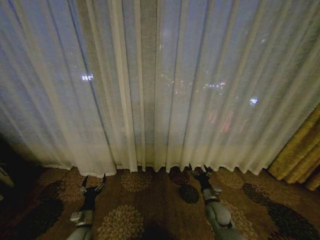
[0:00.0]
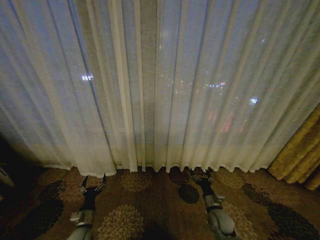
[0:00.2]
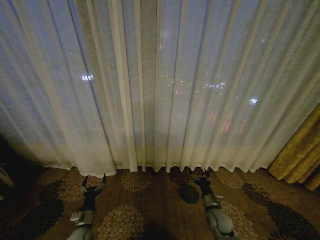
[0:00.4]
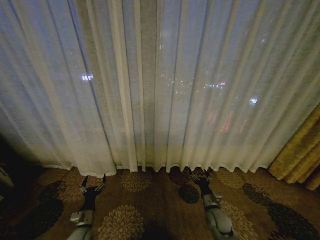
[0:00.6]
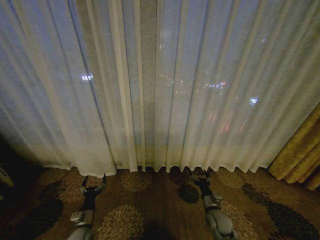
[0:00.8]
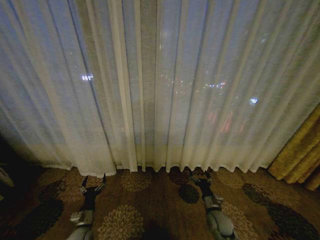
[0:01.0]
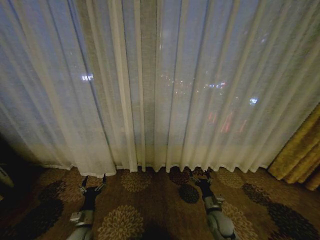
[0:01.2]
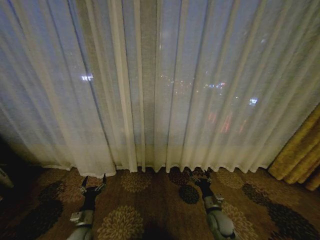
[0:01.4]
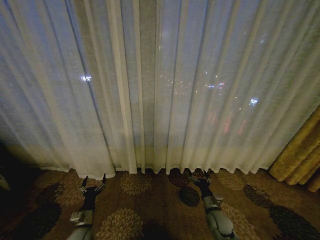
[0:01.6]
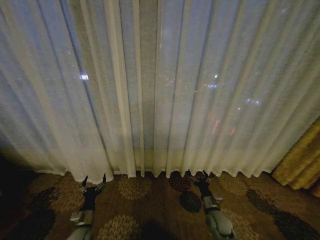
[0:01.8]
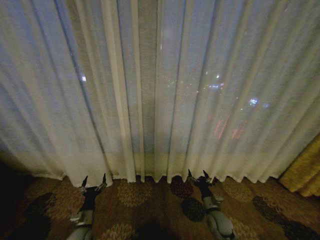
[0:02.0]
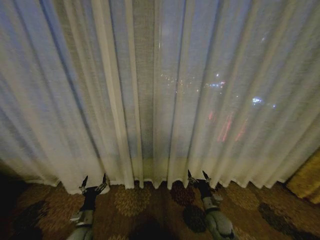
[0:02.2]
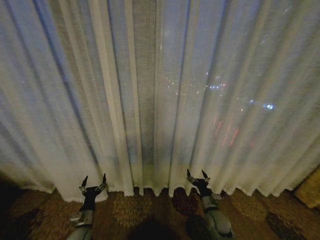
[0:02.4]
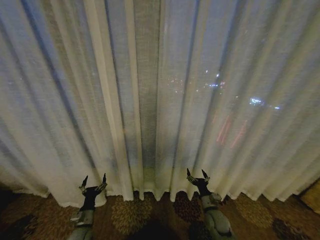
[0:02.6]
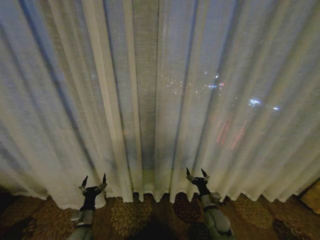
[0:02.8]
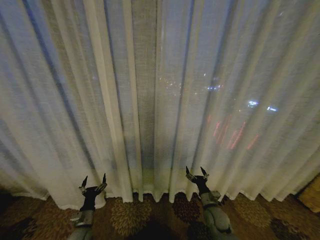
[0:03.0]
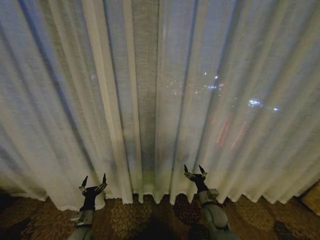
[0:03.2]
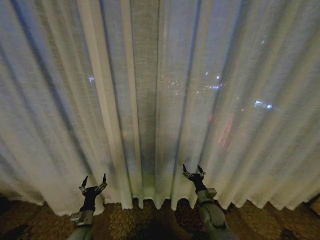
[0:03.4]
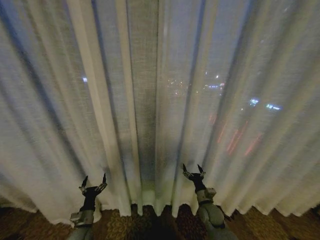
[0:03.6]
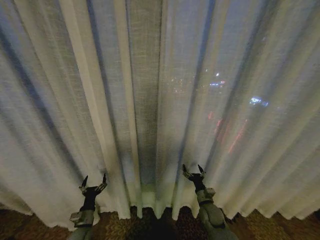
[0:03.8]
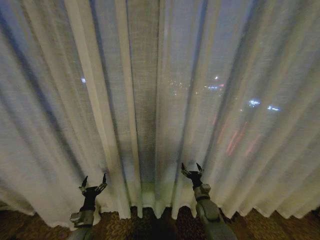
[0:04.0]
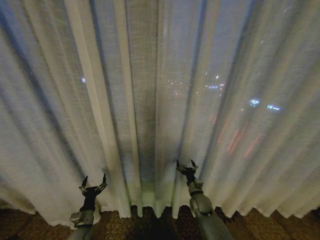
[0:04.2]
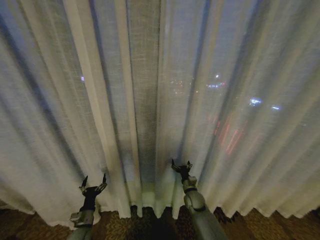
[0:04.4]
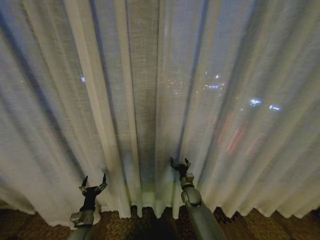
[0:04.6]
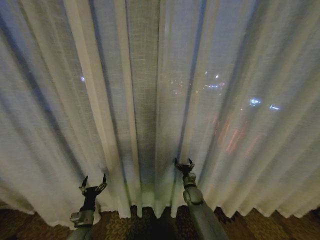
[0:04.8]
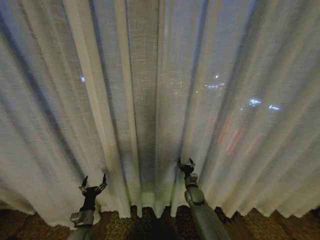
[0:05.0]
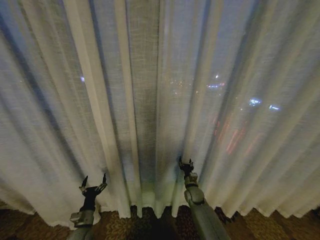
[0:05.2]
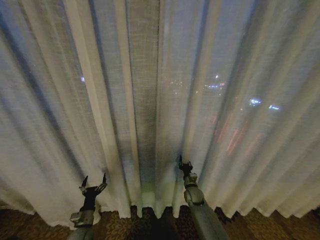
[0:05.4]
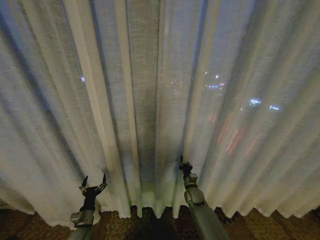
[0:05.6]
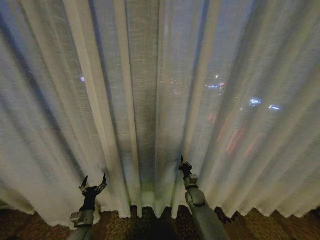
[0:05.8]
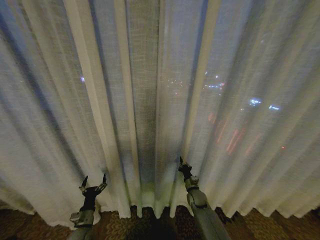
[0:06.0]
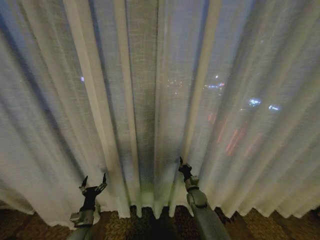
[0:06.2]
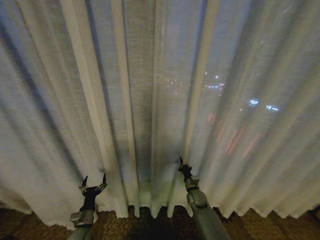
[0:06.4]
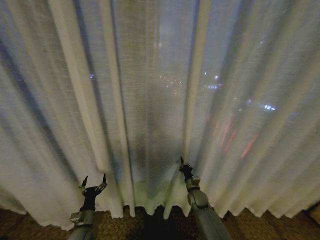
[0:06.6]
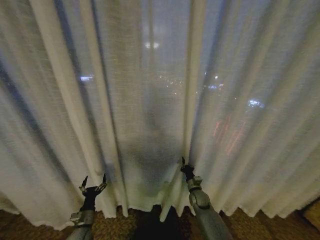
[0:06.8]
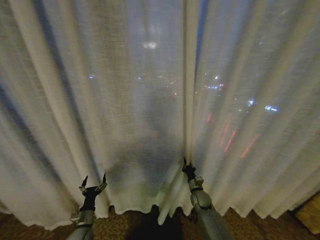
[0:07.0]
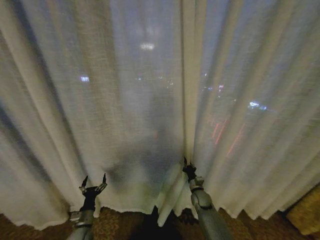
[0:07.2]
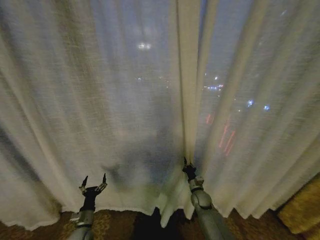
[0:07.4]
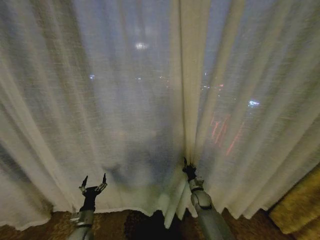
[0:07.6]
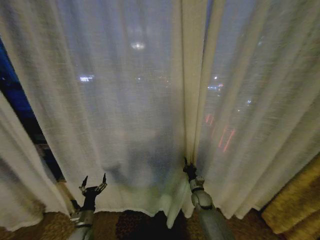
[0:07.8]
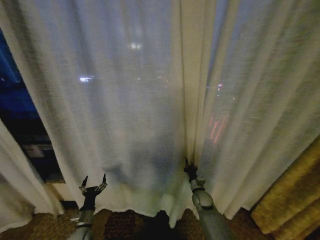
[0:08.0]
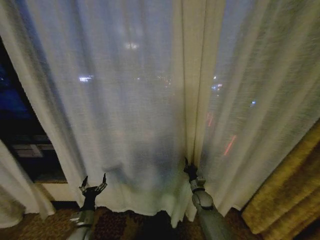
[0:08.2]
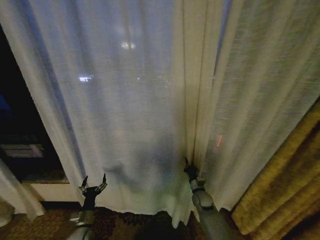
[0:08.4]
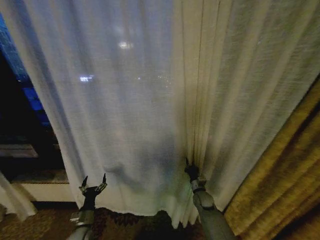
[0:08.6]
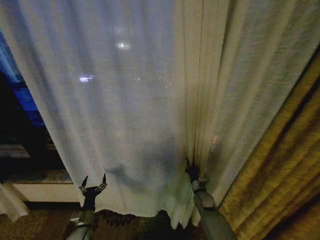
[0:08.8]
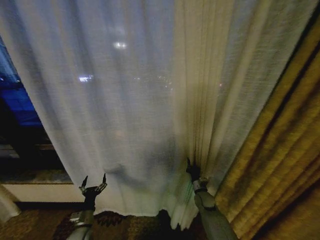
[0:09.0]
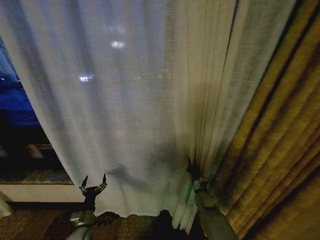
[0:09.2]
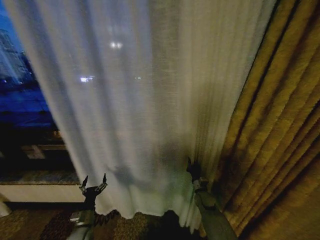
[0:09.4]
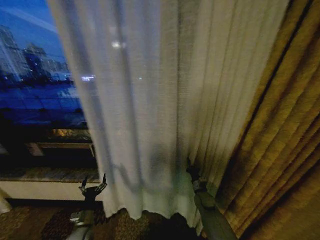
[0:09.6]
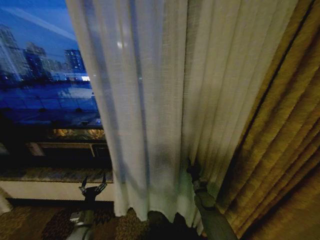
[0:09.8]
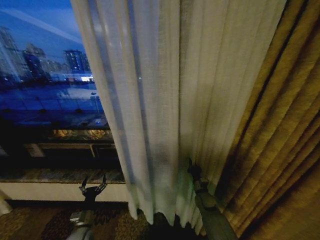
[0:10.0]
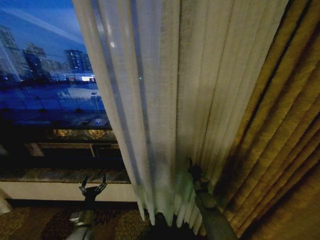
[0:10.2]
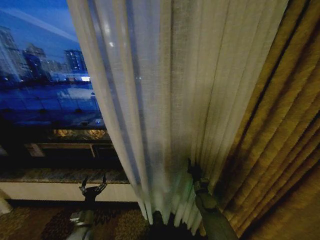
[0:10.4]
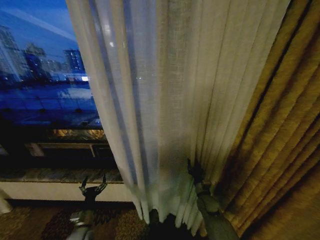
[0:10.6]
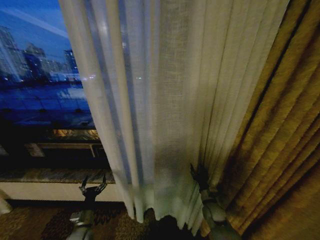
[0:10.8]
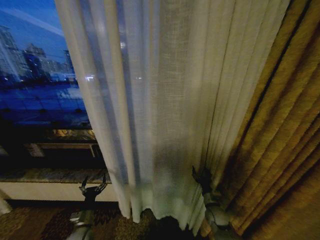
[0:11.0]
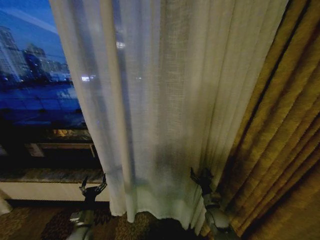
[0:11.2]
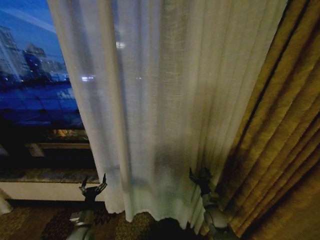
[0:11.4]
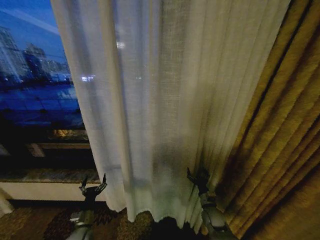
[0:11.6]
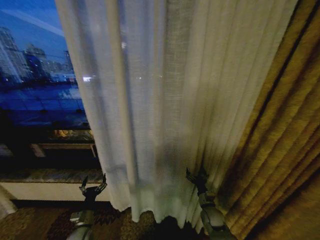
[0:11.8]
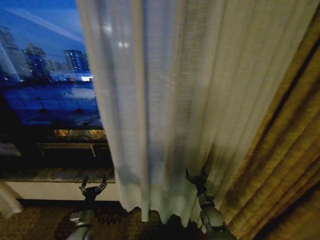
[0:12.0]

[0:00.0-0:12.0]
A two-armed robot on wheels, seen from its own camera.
Task of the whole recording: Open the curtains by pulling them apart, changing their state from closed to fully open.
0:03.0 to 0:04.4: The right gripper is displaced forward and to the left by about 10 cm.
0:04.4 to 0:06.0: The right gripper closes its fingers.
0:10.4 to 0:12.0: The right gripper shifts about 5 cm backward, and opens up.

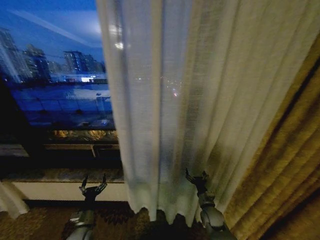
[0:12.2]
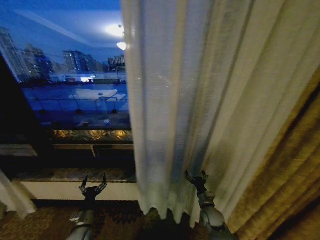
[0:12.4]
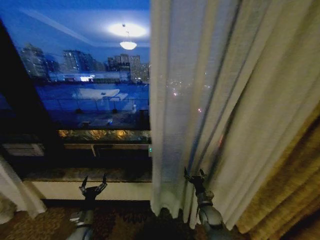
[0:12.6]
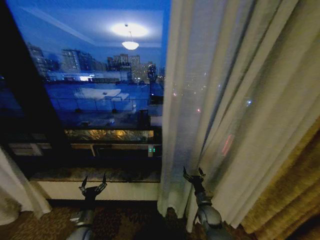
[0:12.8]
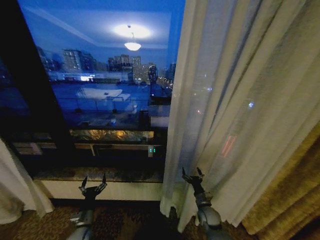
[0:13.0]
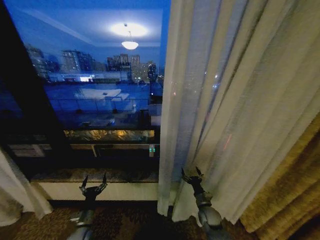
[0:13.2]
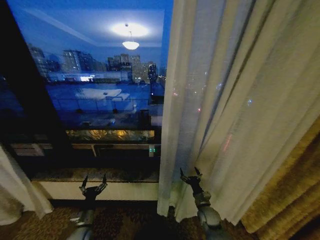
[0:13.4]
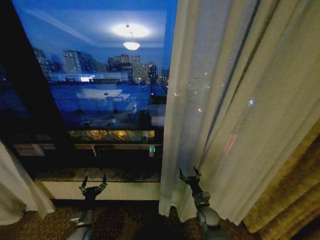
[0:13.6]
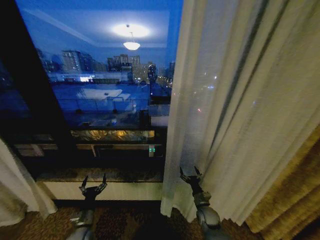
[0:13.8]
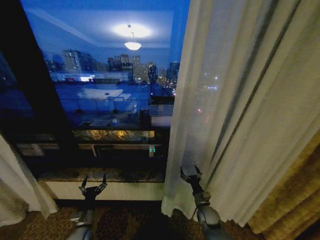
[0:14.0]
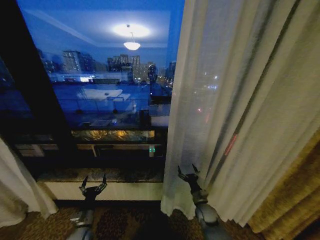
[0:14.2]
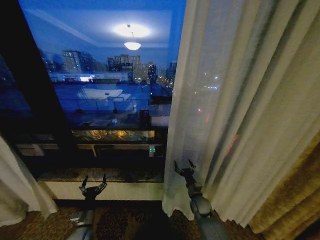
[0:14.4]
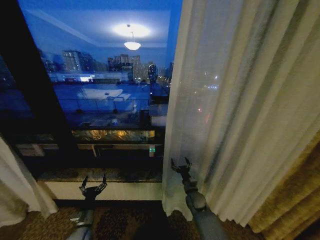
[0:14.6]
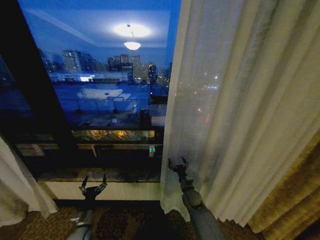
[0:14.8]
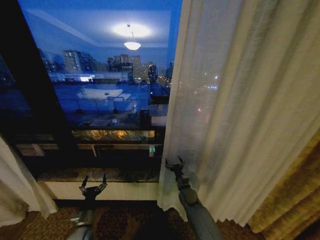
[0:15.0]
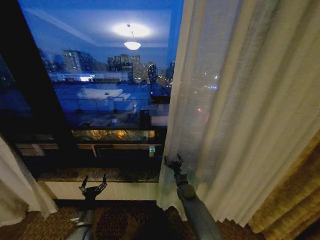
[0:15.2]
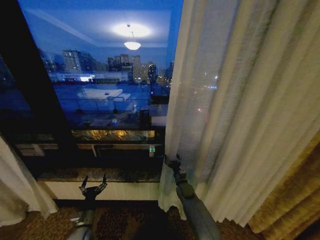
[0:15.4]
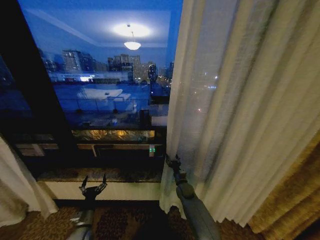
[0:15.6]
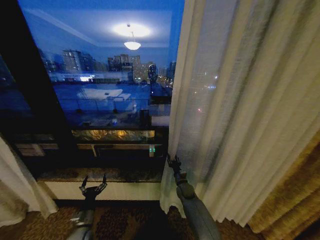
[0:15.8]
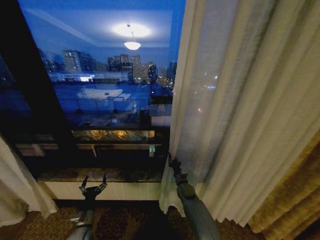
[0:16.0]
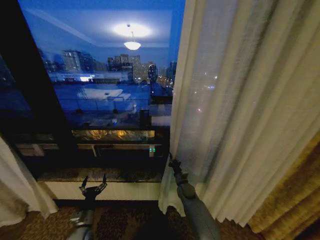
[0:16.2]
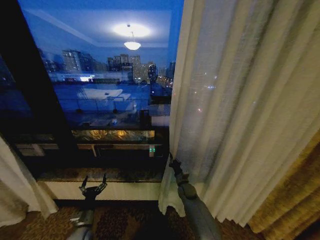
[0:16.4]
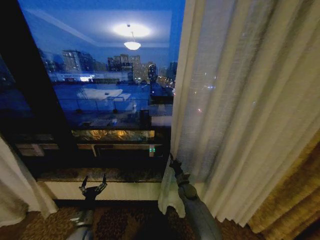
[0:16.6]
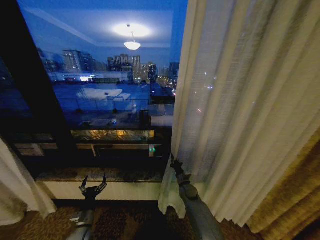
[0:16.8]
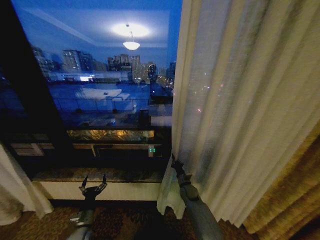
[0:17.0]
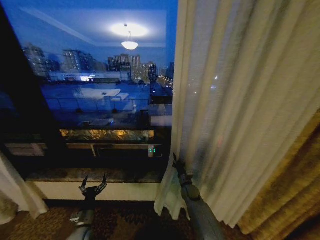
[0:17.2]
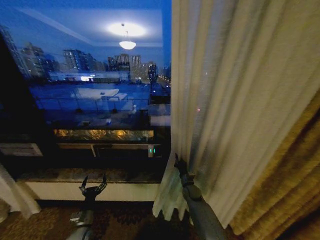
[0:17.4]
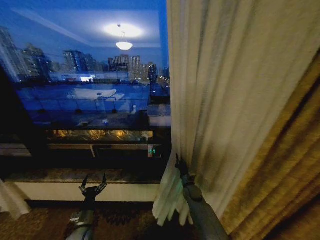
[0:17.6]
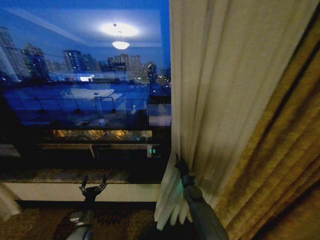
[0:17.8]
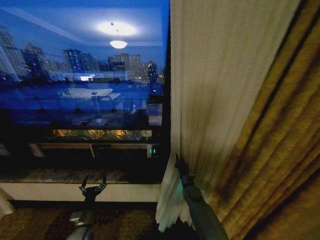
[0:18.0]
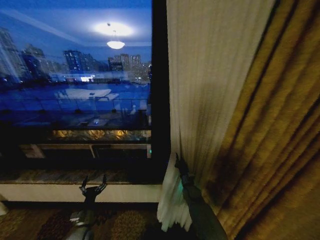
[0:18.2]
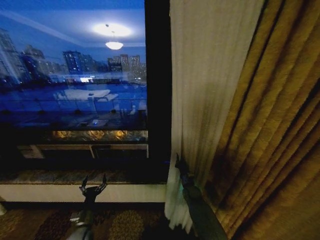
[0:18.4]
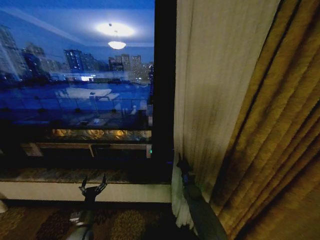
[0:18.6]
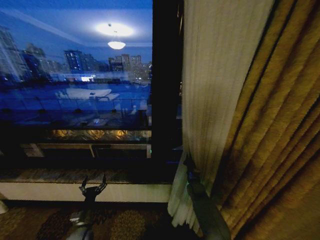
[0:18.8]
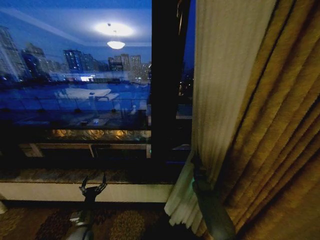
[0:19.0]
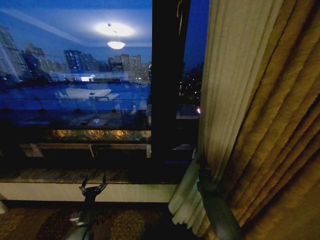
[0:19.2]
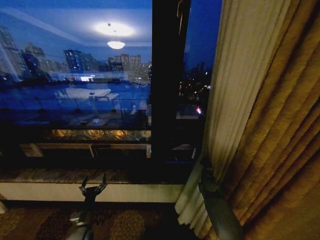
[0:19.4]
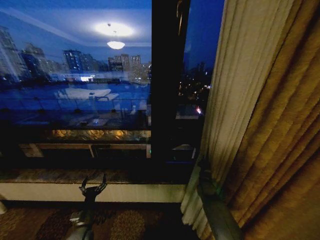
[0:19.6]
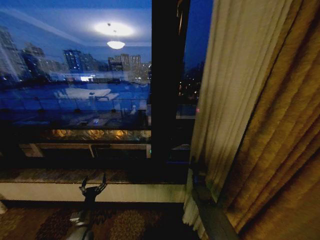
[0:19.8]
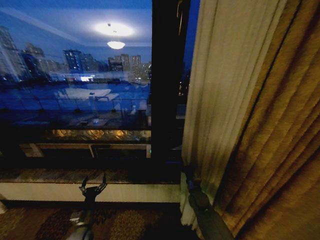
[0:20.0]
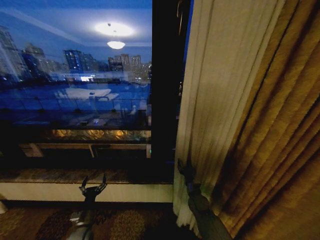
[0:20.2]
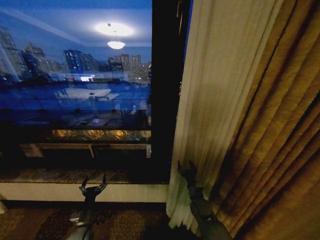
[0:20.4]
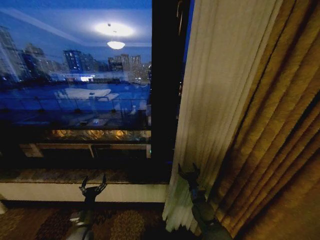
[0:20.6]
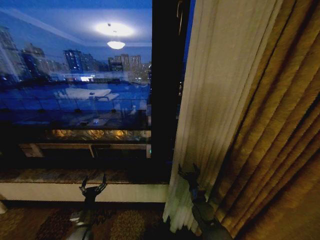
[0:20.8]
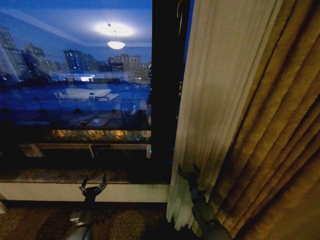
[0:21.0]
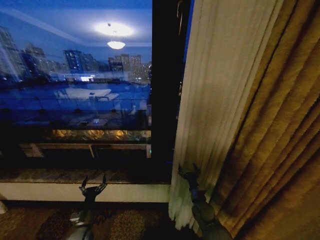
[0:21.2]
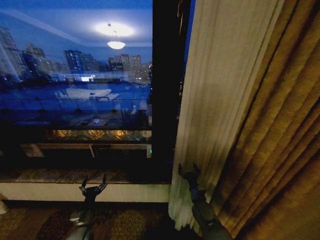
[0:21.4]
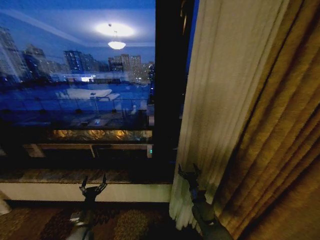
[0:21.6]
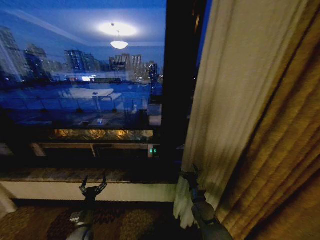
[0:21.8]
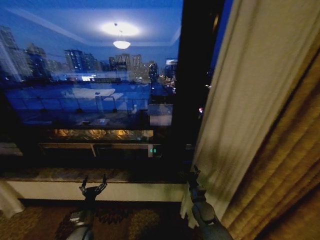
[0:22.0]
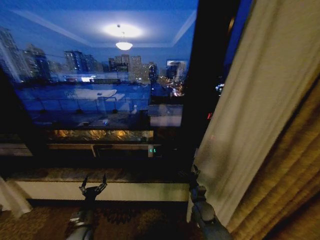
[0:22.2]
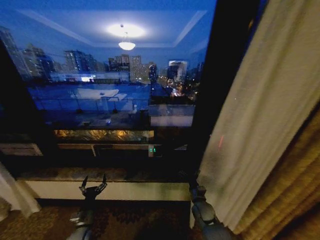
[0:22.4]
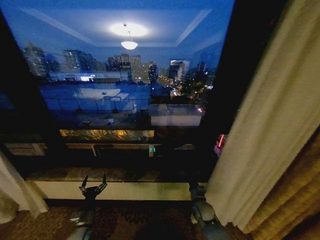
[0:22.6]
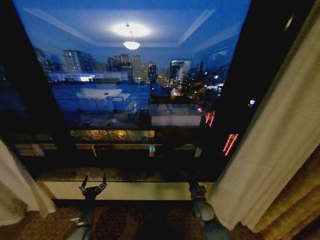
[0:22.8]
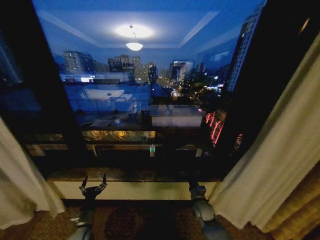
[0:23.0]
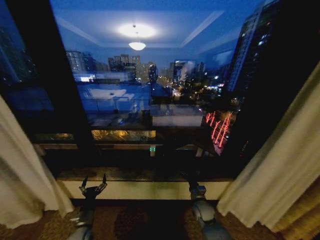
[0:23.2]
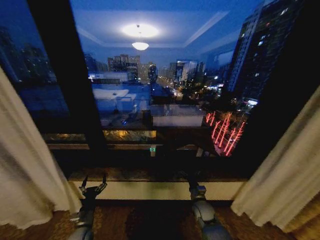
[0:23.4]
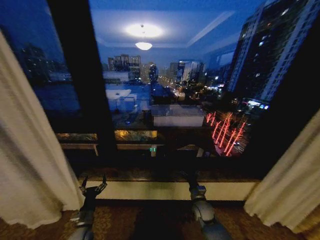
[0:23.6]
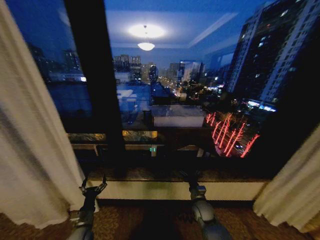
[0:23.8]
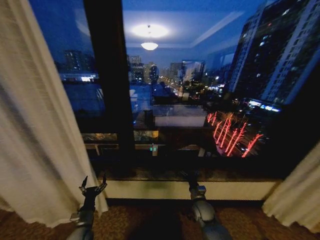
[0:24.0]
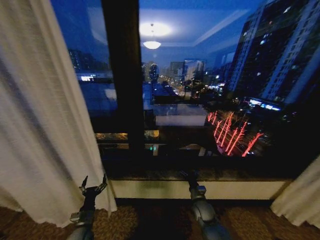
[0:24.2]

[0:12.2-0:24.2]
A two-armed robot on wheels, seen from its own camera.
Task of the whole recording: Open the curtains by pulling them apart, changing their state from closed to fully open.
0:13.8 to 0:15.2: The right gripper travels forward and to the left by roughly 15 cm.
0:15.2 to 0:16.6: The right gripper closes.
0:19.8 to 0:21.2: The right gripper travels backward by approximately 10 cm, and opens.
